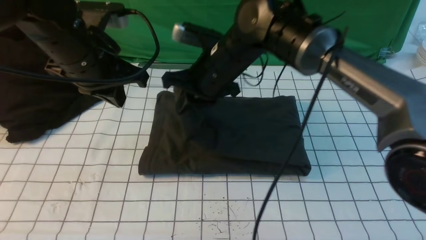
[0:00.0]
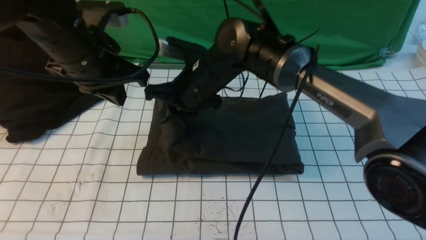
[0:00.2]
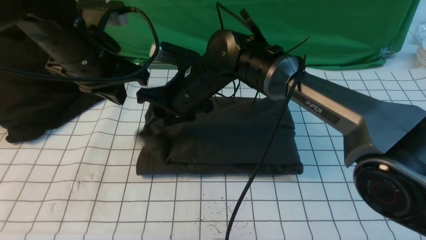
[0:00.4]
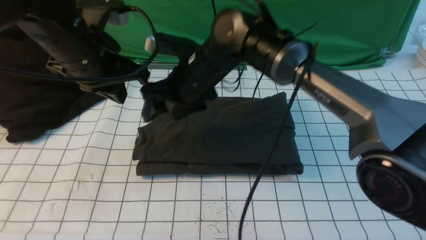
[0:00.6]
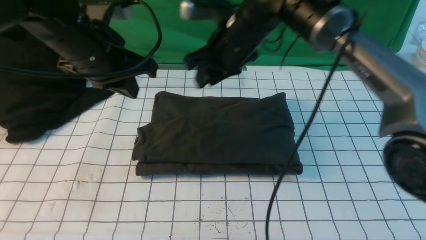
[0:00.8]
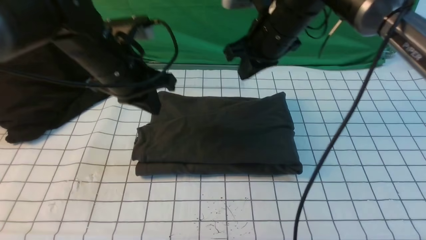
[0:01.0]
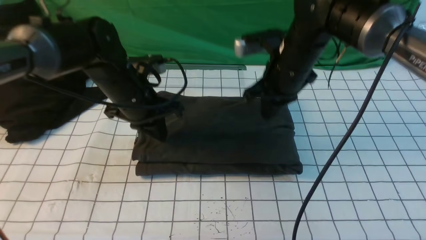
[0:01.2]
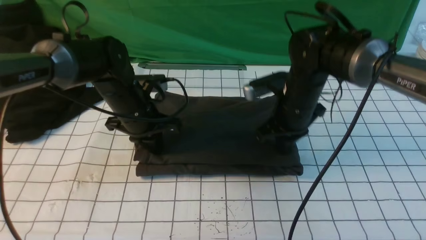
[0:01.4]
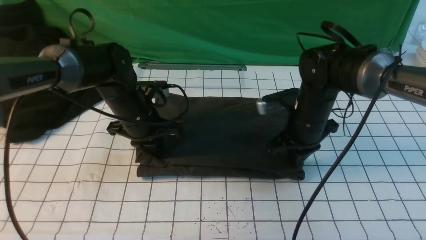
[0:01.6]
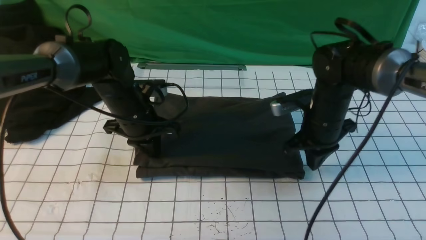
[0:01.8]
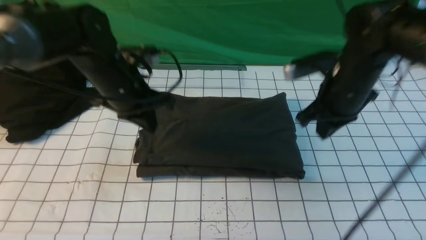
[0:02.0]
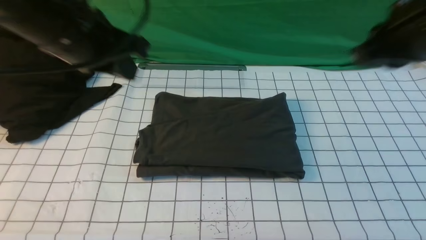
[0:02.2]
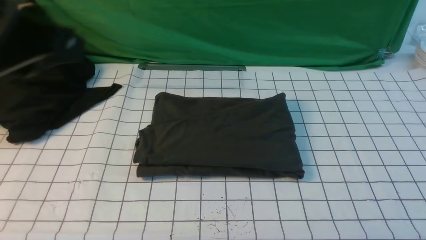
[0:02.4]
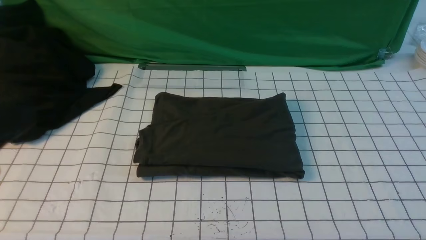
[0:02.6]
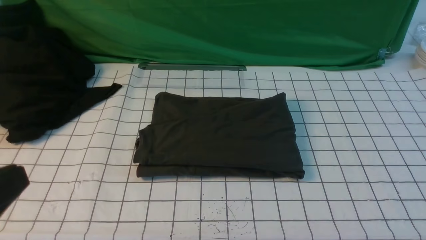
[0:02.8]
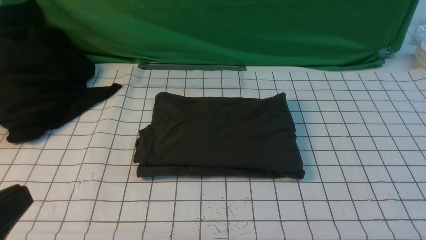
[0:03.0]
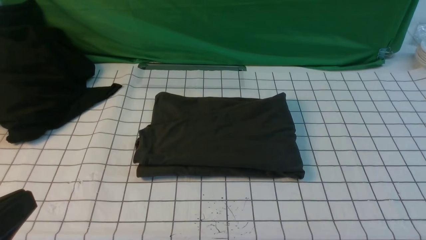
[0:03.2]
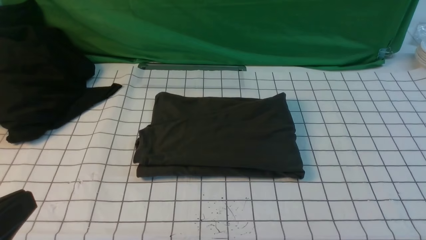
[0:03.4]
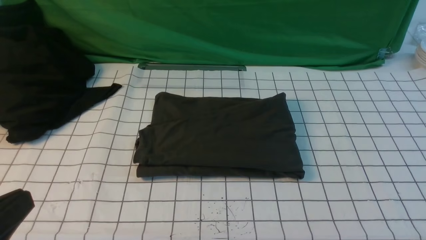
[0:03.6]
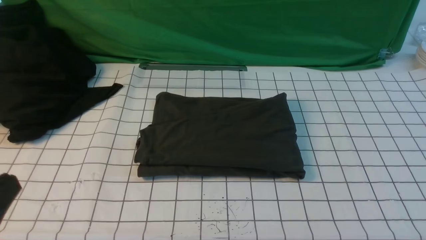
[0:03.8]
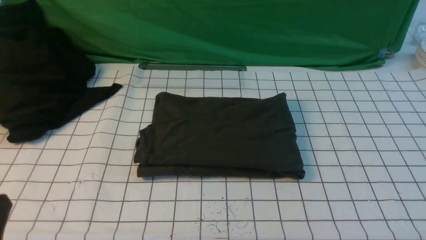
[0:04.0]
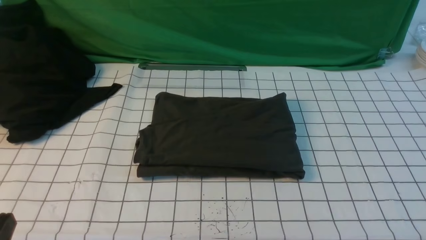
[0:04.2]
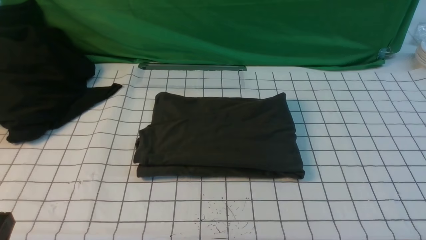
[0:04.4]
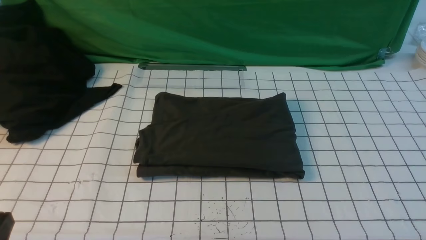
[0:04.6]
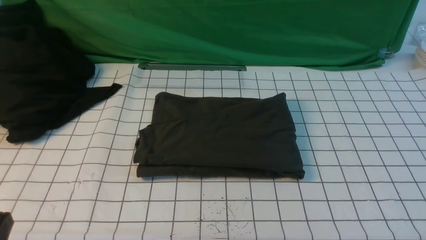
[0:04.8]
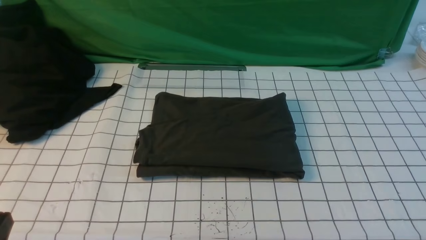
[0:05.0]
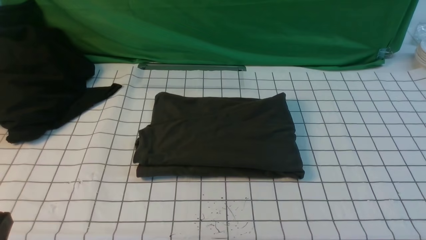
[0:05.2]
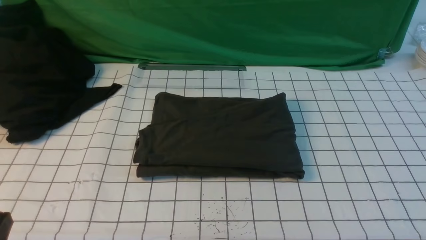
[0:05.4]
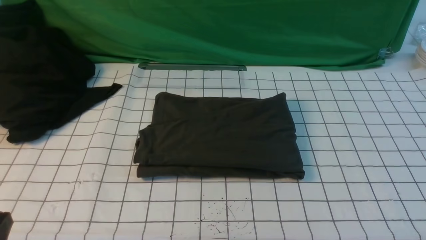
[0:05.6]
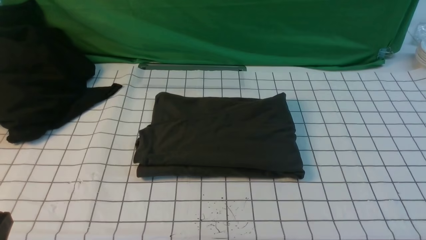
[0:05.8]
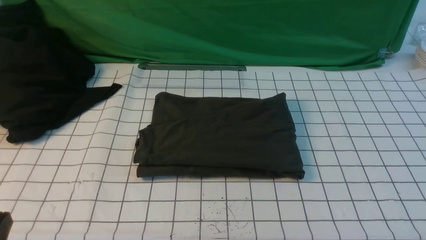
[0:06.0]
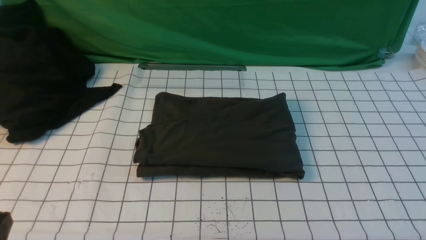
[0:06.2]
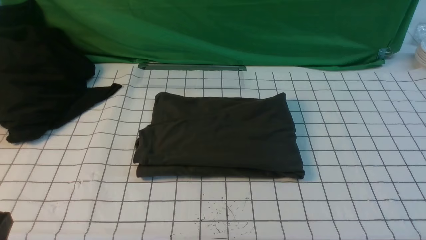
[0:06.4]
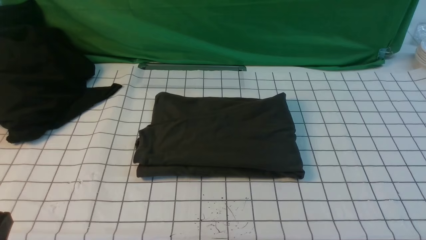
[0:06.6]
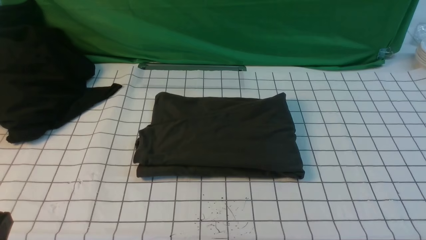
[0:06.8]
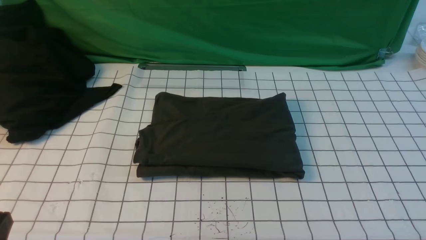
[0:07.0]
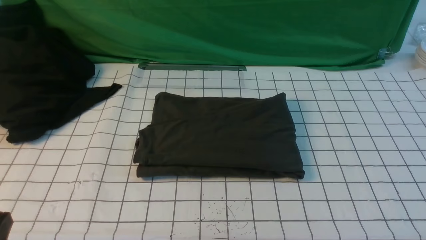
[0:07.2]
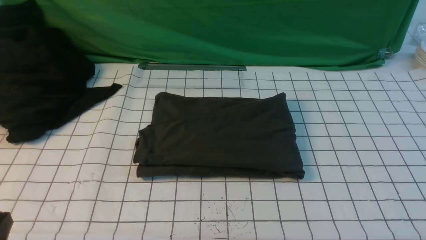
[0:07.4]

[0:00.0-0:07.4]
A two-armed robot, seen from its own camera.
0:00.0 to 0:01.4: The left gripper shifts approximately 15 cm downward; the right gripper heads to the right and downward, covering some 15 cm, and opens, then closes once more.
0:01.4 to 0:03.0: The left gripper is displaced backward by approximately 35 cm. Meanwhile the right gripper is displaced backward, to the right and upward by some 40 cm.
0:03.0 to 0:04.4: The left gripper goes about 10 cm downward.
0:06.0 to 0:07.4: Neither gripper changes place.

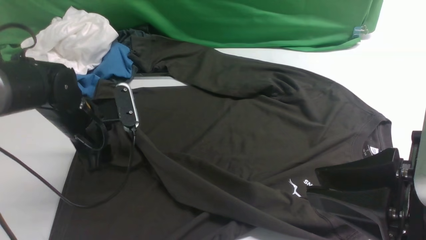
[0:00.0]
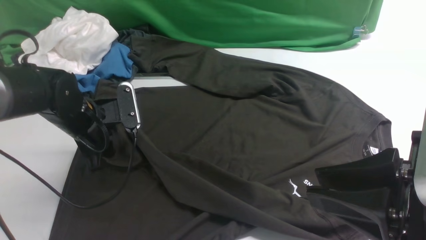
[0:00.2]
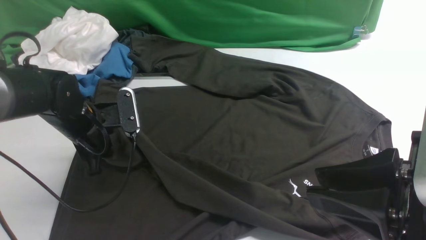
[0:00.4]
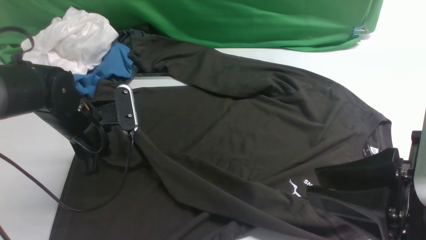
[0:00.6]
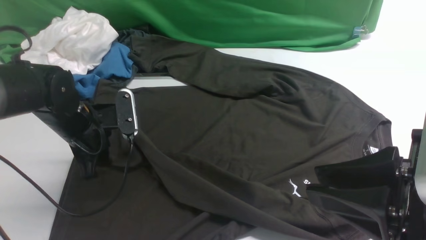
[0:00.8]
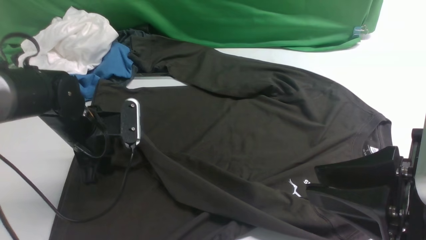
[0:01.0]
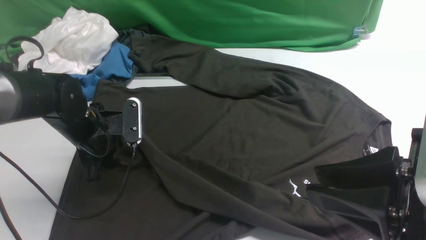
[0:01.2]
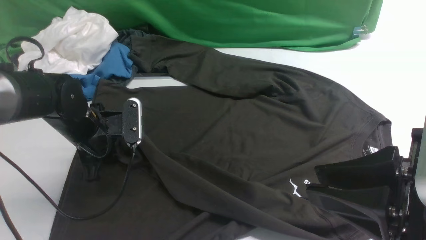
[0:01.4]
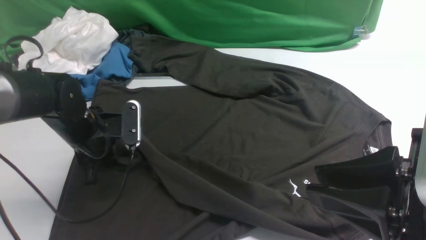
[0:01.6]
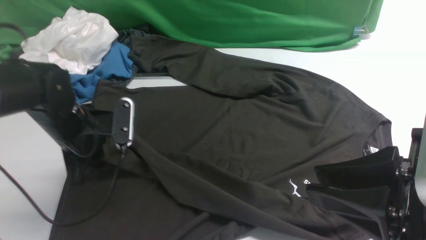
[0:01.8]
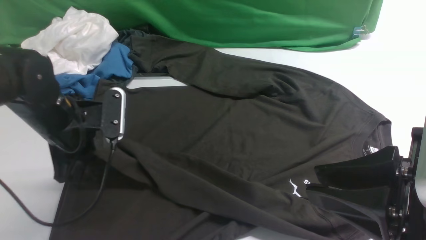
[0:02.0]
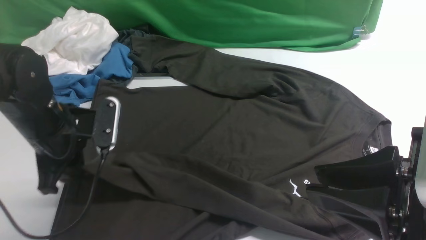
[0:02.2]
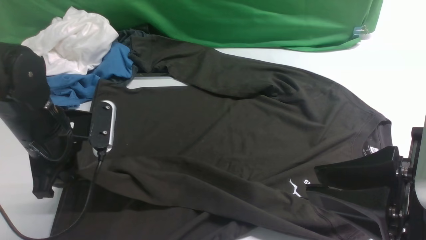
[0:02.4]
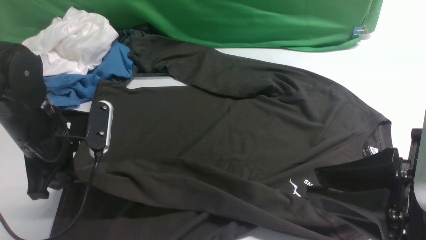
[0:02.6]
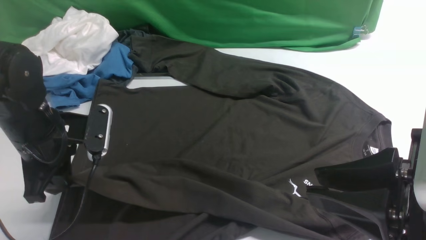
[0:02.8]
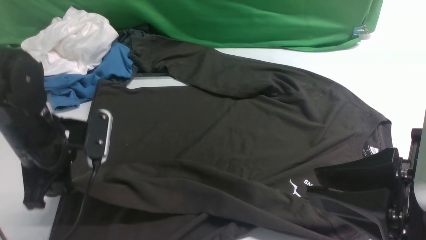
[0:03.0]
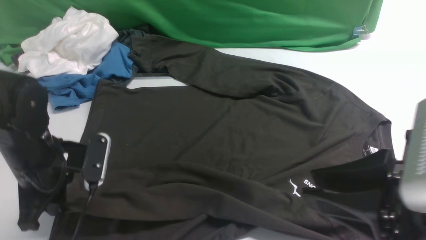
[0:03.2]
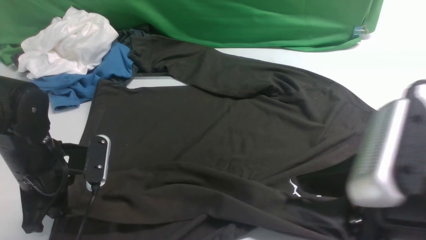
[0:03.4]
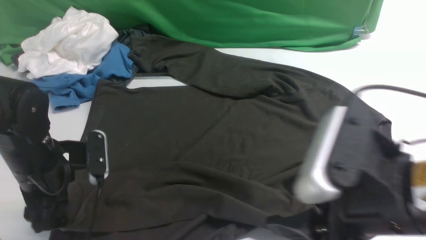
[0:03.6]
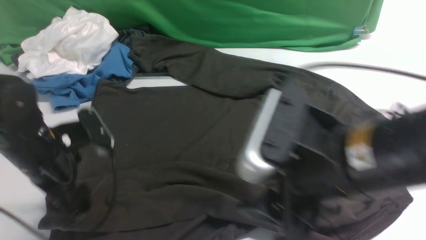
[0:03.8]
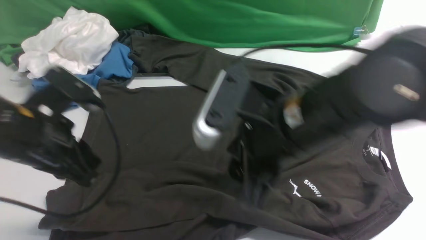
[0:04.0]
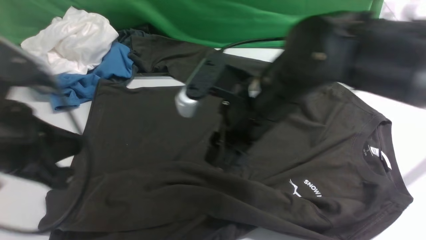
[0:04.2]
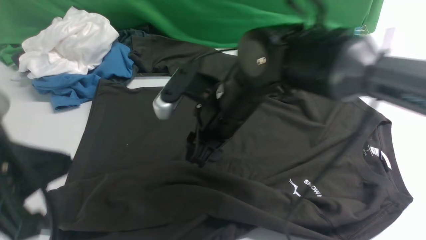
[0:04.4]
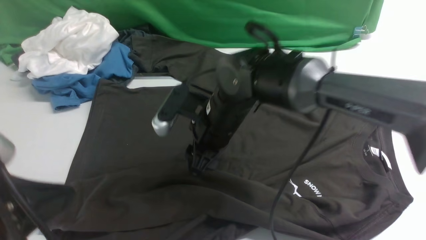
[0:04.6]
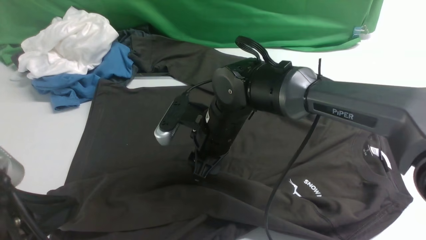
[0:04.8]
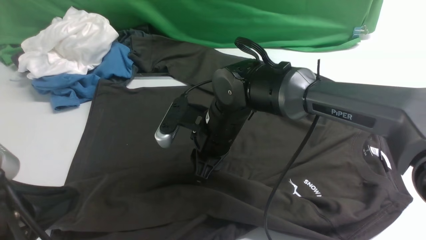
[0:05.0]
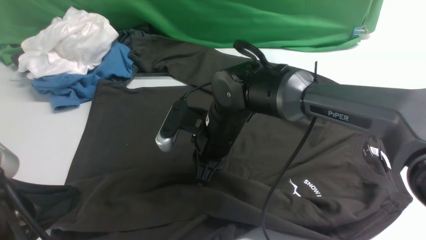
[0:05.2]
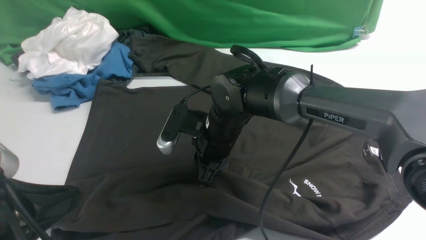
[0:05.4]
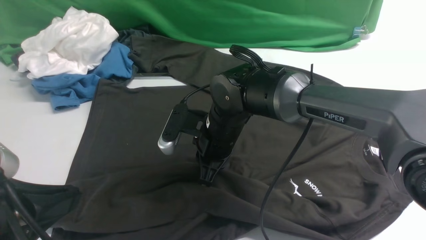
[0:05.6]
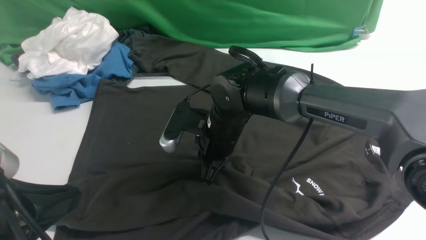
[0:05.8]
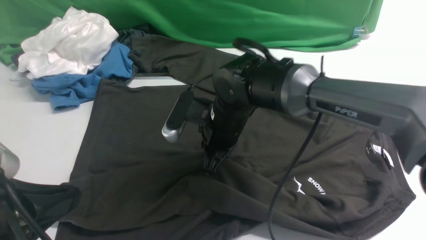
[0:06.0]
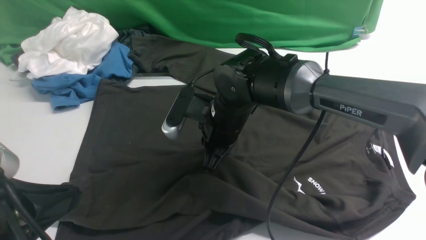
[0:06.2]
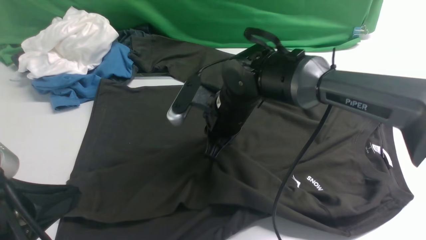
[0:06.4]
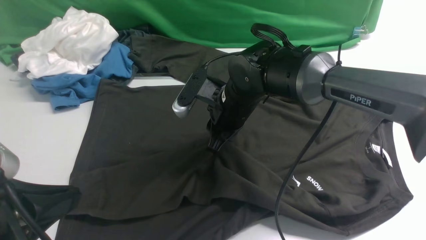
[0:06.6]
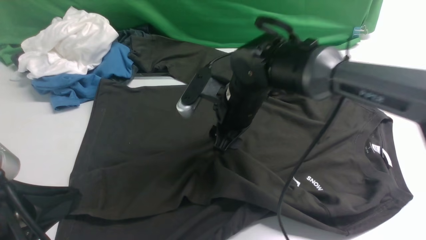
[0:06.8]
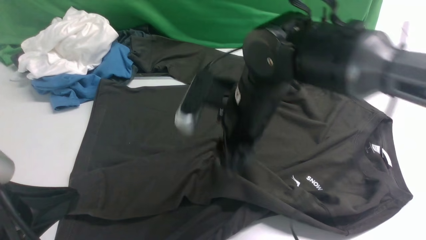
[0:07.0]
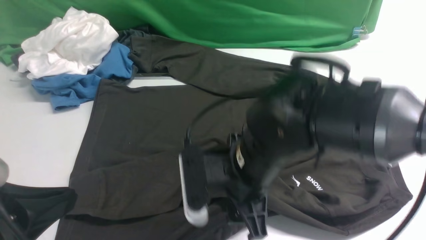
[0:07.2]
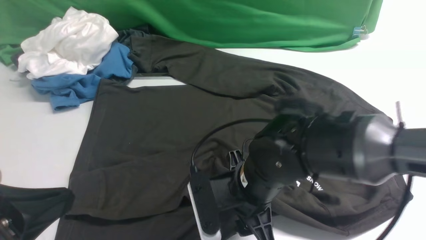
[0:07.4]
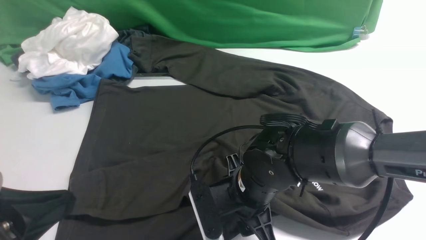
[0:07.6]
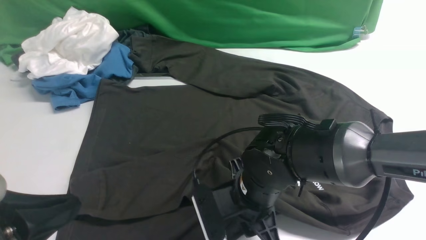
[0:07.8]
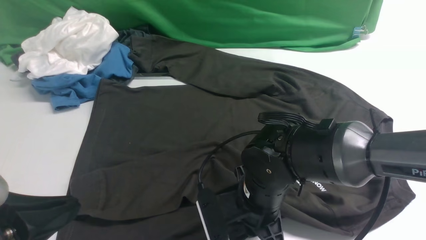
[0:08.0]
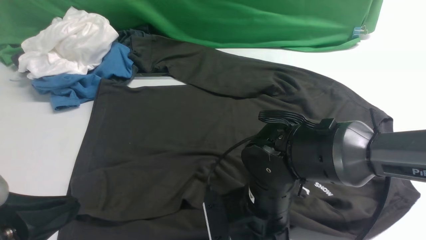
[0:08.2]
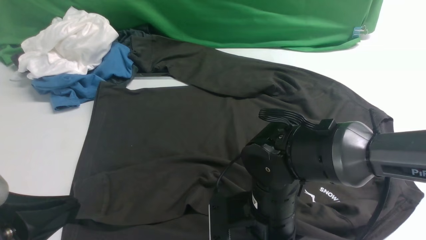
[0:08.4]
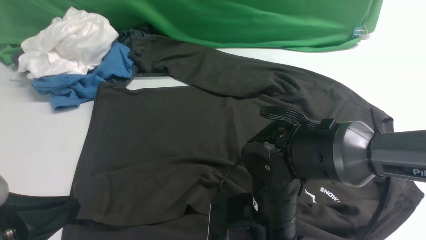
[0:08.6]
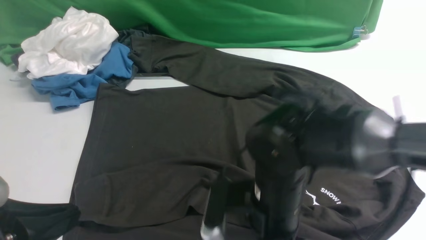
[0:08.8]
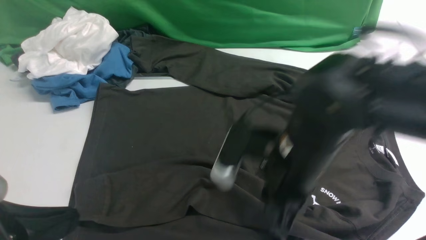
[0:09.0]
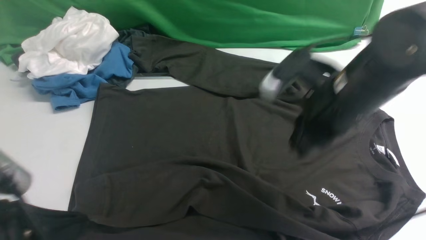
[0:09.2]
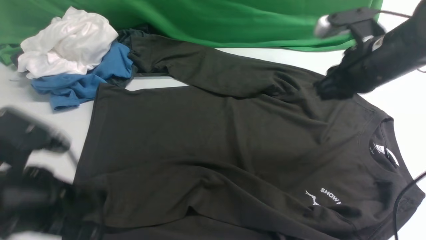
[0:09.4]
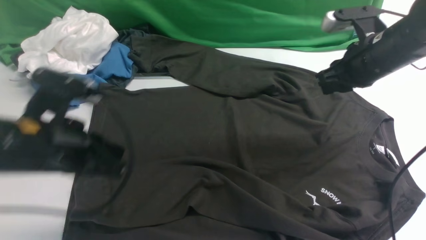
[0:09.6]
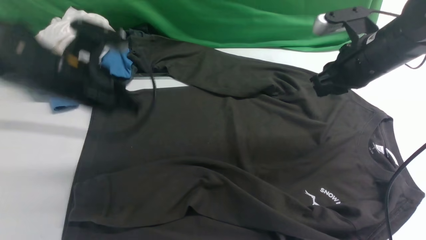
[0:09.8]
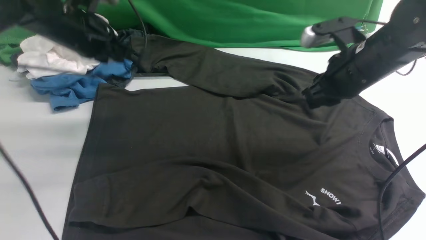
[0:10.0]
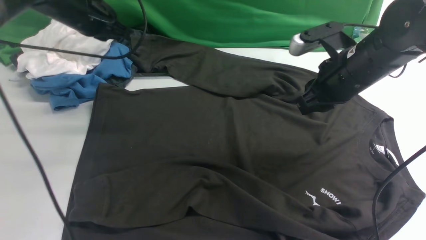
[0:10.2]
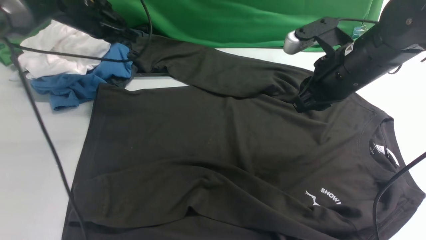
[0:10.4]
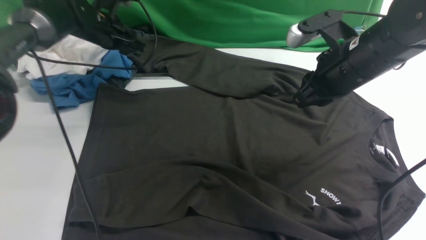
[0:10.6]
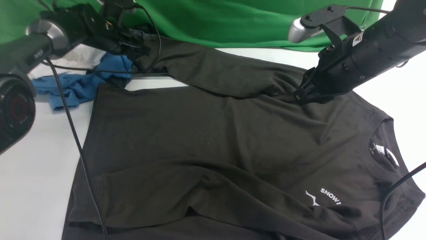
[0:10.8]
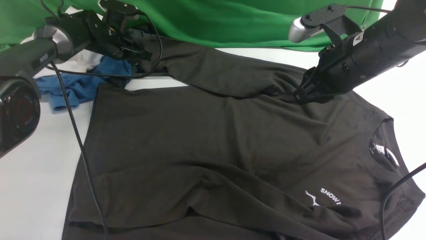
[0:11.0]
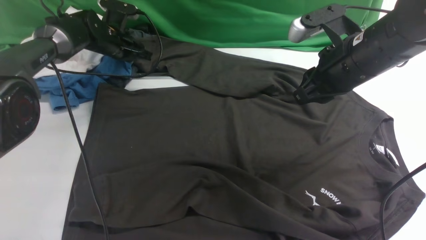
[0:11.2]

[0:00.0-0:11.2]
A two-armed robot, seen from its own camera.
0:00.0 to 0:01.6: The left gripper closes its fingers.
0:01.6 to 0:03.2: The left gripper travels backward by approximately 5 cm.
0:03.2 to 0:04.8: The right gripper is displaced forward, to the left and downward by roughly 35 cm, while the left gripper heads backward and upward, covering approximately 20 cm, and opens, then closes again.
0:04.8 to 0:06.4: The right gripper closes.
0:06.4 to 0:08.0: The right gripper is displaced backward by roughly 15 cm, and opens and closes again.
0:08.0 to 0:09.6: The right gripper shifts some 25 cm to the right, forward and upward, and opens, then closes again; the left gripper shifts roughly 15 cm forward.
0:09.6 to 0:11.2: The left gripper shifts about 30 cm forward, and opens and closes again; the right gripper shifts by some 5 cm.
